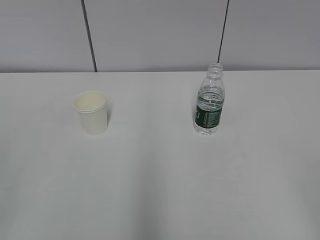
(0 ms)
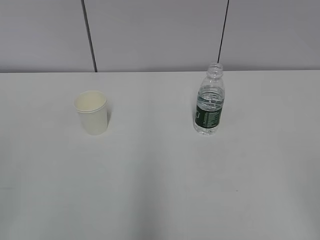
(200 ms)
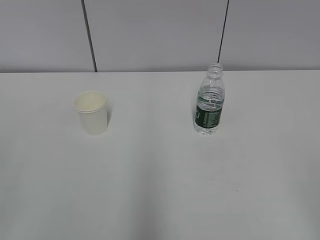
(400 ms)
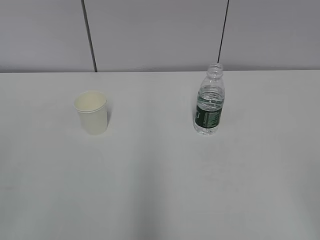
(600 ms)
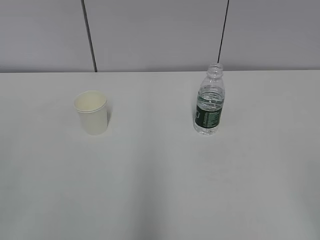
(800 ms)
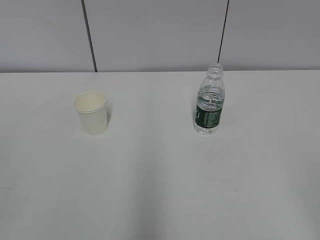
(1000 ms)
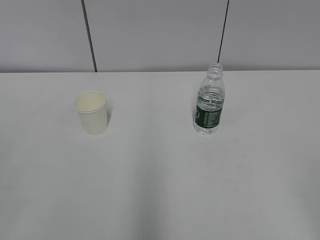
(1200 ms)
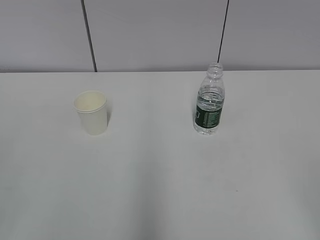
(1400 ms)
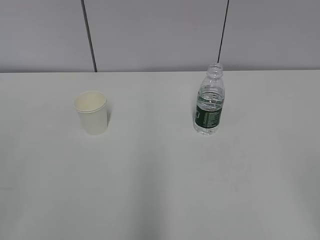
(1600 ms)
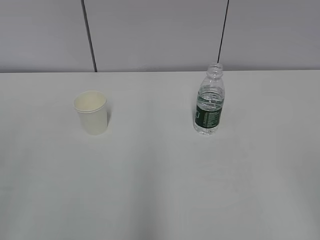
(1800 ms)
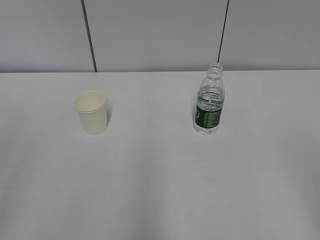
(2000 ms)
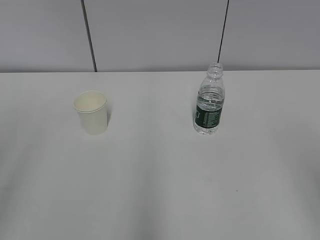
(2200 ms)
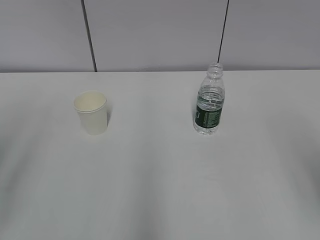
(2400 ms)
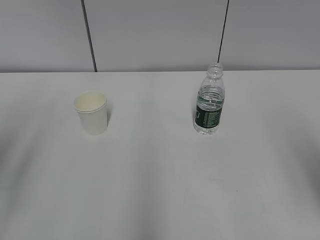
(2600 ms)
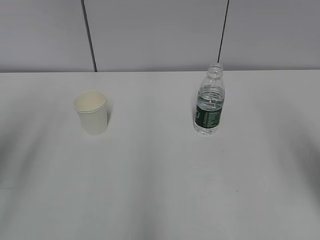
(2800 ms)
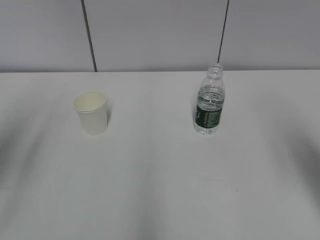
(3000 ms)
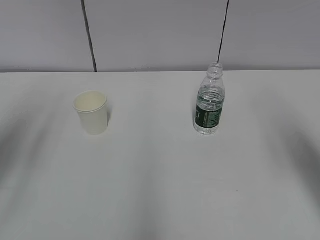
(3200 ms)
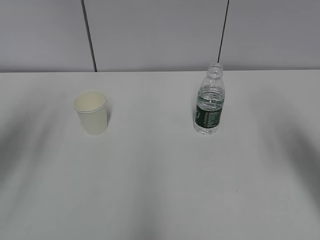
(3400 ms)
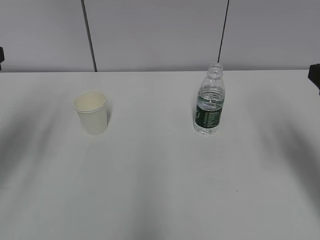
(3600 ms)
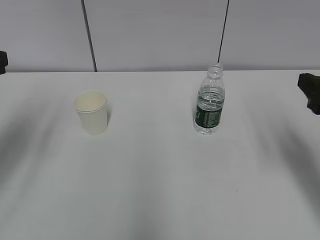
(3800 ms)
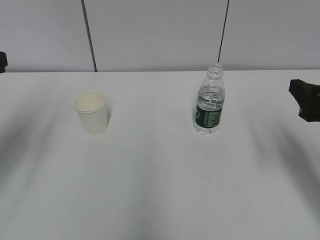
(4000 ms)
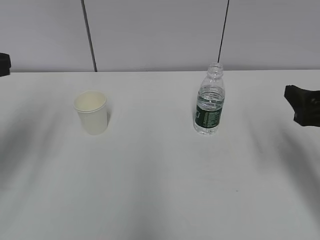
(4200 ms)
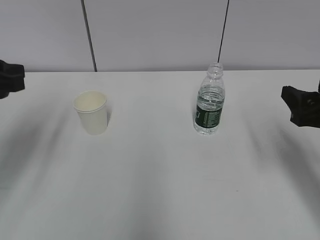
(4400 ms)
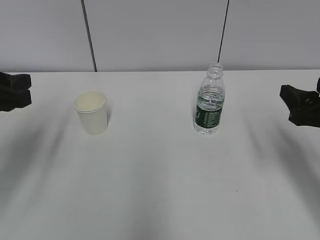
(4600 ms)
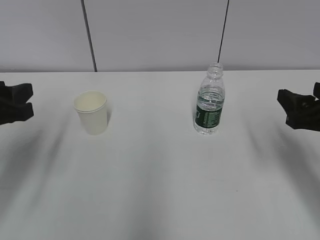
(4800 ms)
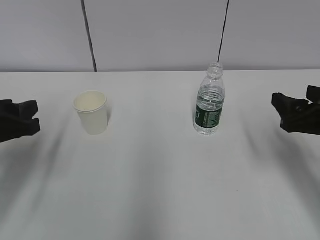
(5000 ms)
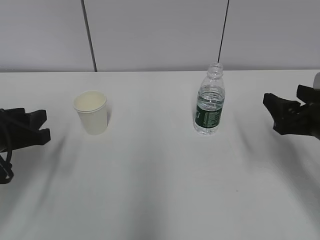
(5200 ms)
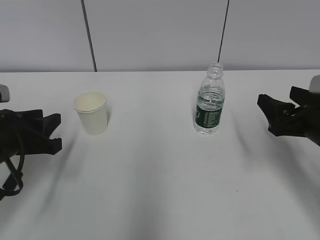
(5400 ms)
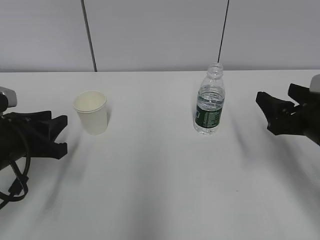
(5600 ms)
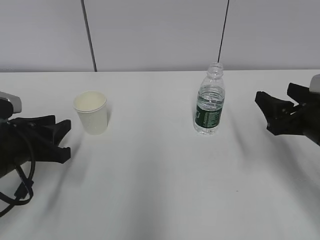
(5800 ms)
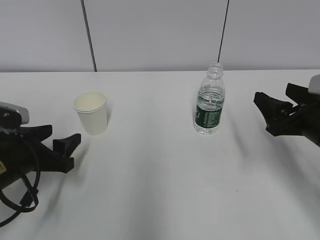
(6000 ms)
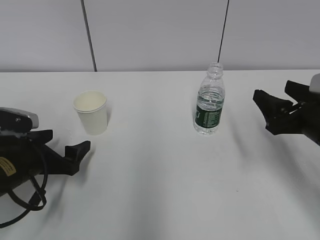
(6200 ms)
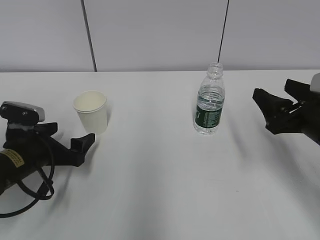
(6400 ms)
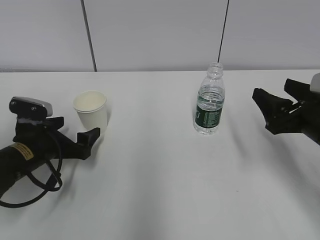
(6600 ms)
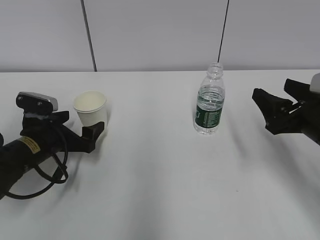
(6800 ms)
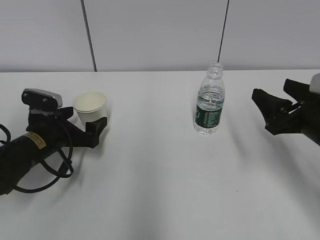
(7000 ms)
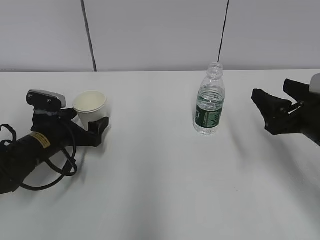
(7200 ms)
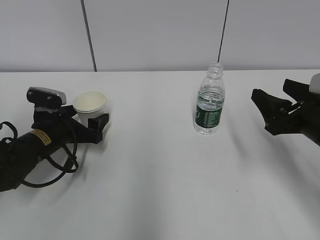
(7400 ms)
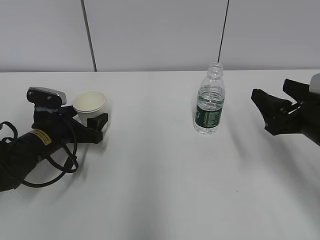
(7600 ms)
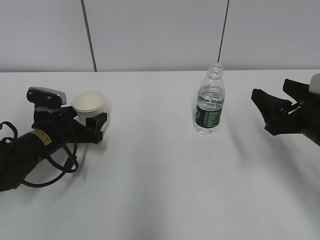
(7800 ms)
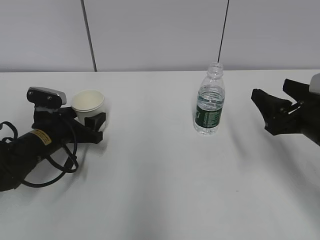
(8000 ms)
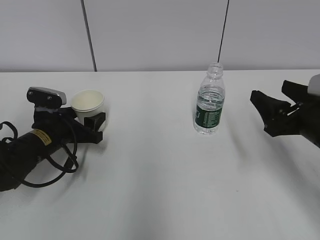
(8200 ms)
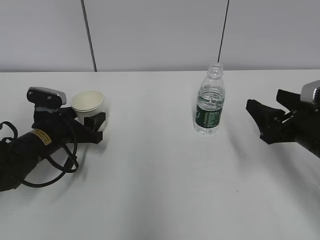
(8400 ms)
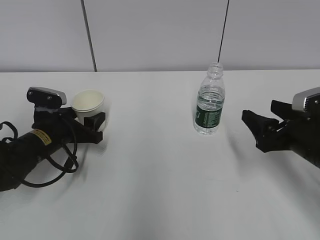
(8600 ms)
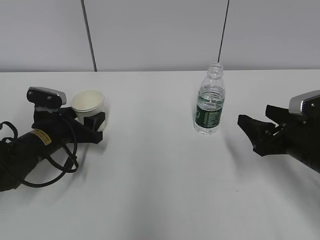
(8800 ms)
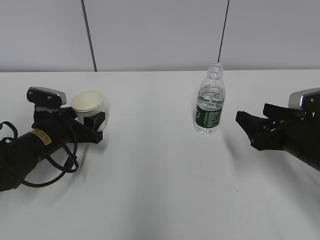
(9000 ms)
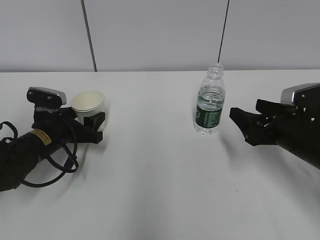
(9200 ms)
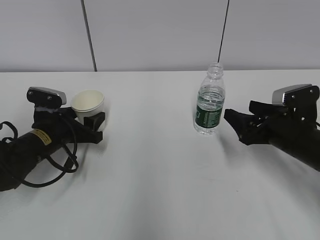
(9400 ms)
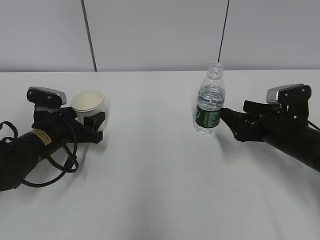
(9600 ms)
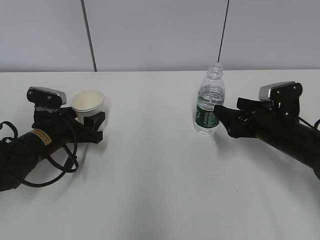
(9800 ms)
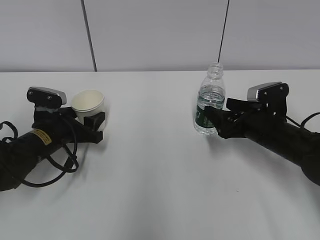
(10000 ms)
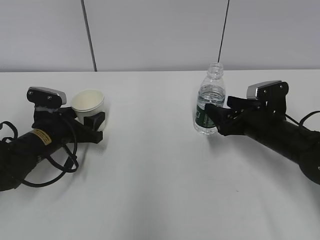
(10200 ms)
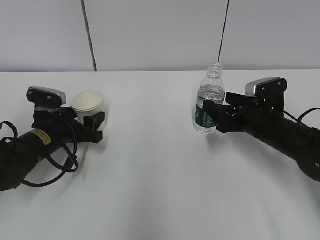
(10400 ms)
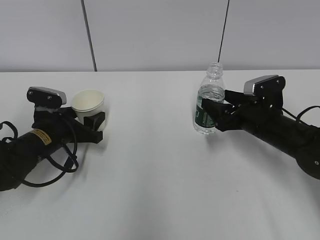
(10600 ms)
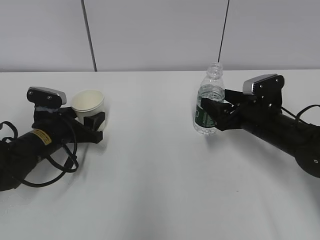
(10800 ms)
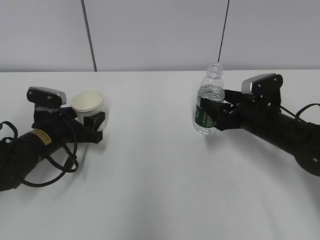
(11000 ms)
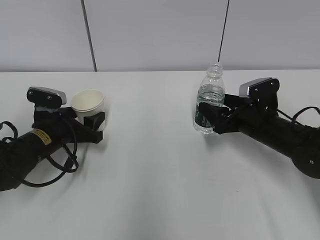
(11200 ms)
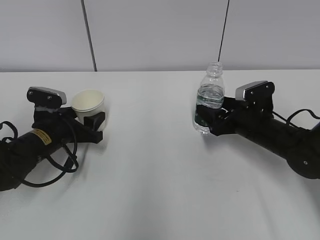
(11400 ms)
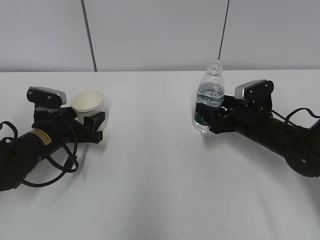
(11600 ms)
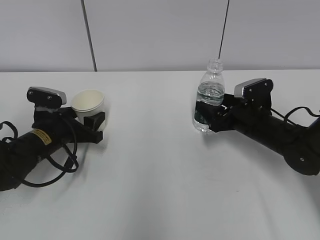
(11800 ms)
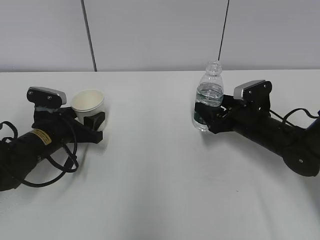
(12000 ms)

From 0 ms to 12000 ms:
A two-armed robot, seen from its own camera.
Step, from 0 ms to 6800 ms: Grab the paper cup with the left hand.
Step, from 7000 ms to 10600 ms: Grab the water bottle with the right hand.
From 1600 ms to 3000 ms: The grippers both shift forward by roughly 20 cm.
From 3000 ms to 4400 ms: The right gripper heads downward and forward, covering some 15 cm, while the left gripper goes roughly 10 cm forward and downward.
From 4400 ms to 6000 ms: The left gripper shifts some 15 cm downward, and opens.
From 6000 ms to 7600 ms: The left gripper shifts some 10 cm forward, and opens up.
From 9000 ms to 10400 ms: The right gripper is displaced forward by some 10 cm.
From 10400 ms to 12000 ms: The grippers make only small movements.

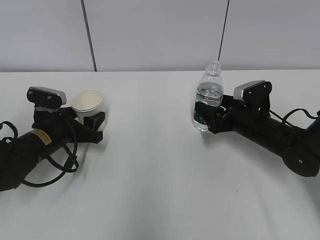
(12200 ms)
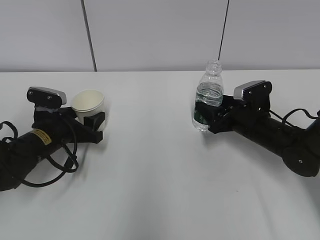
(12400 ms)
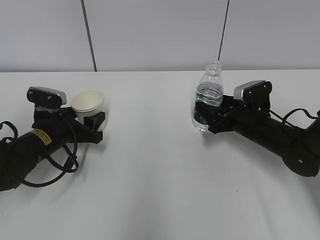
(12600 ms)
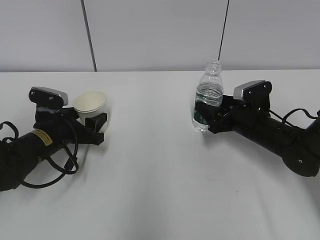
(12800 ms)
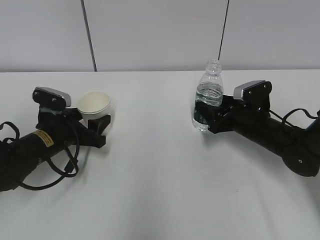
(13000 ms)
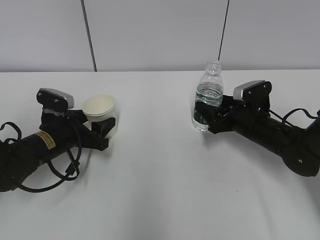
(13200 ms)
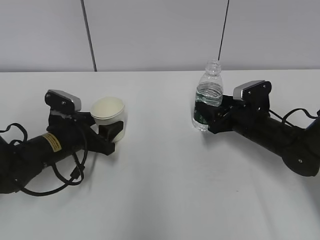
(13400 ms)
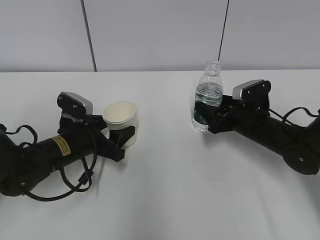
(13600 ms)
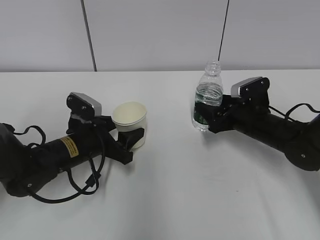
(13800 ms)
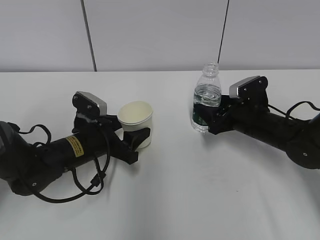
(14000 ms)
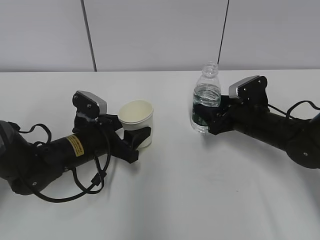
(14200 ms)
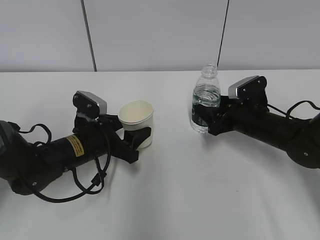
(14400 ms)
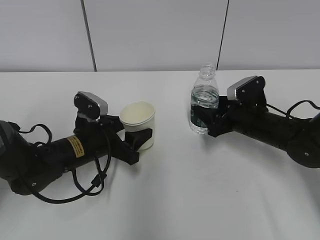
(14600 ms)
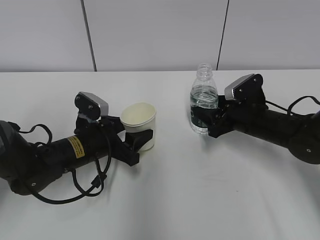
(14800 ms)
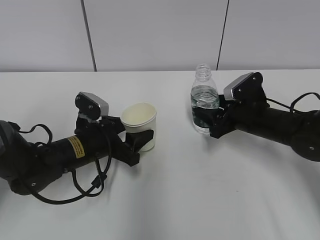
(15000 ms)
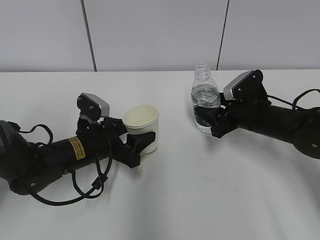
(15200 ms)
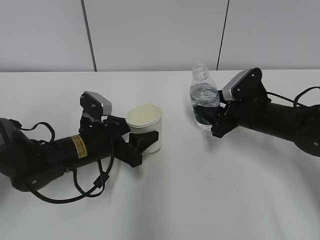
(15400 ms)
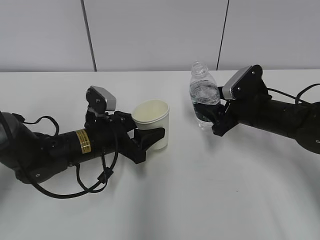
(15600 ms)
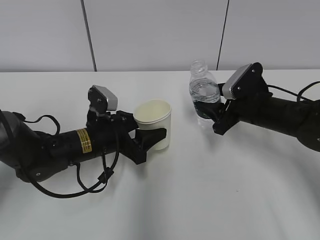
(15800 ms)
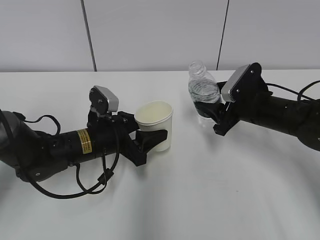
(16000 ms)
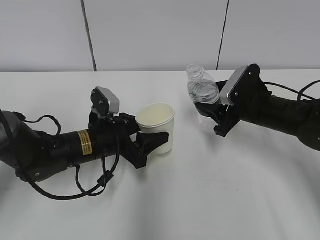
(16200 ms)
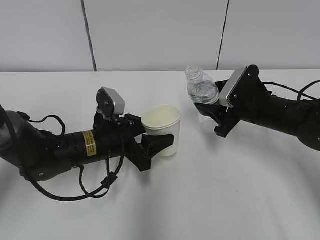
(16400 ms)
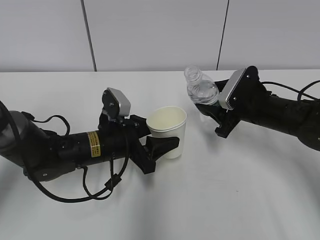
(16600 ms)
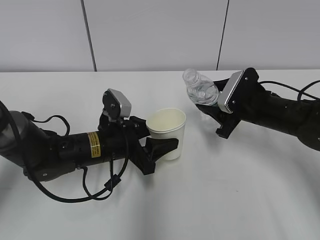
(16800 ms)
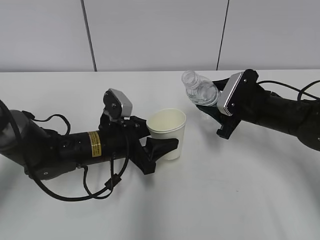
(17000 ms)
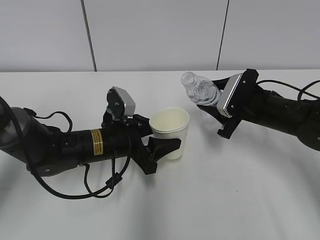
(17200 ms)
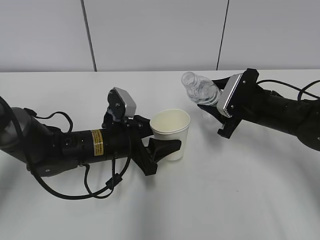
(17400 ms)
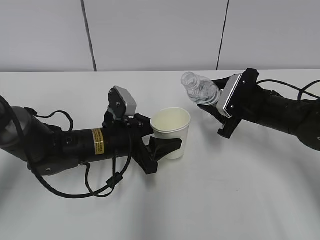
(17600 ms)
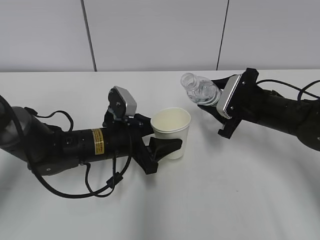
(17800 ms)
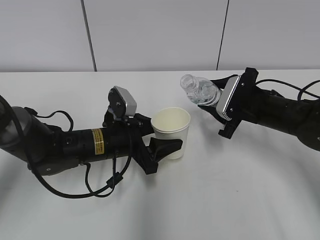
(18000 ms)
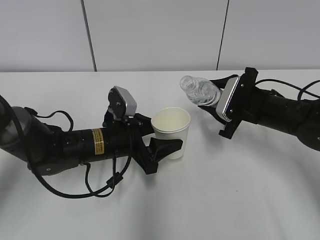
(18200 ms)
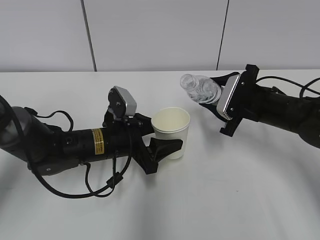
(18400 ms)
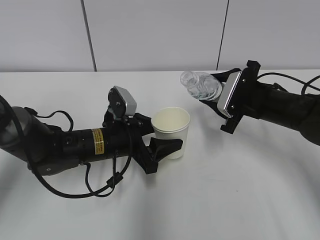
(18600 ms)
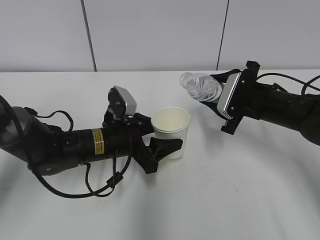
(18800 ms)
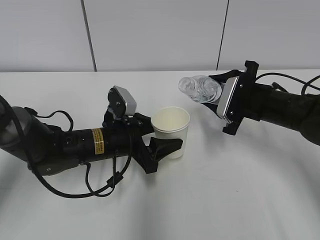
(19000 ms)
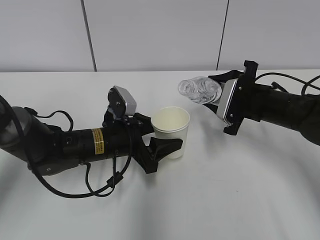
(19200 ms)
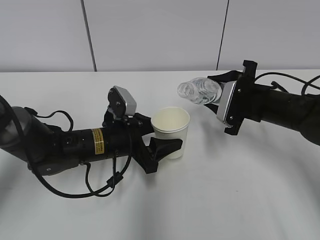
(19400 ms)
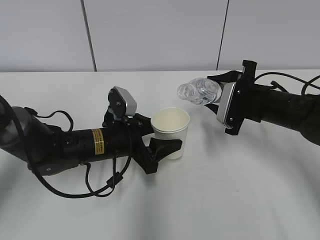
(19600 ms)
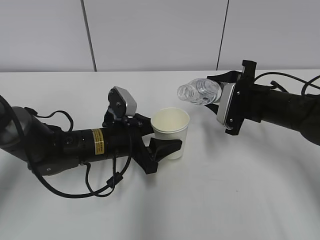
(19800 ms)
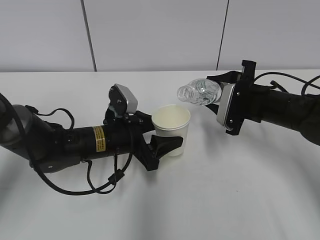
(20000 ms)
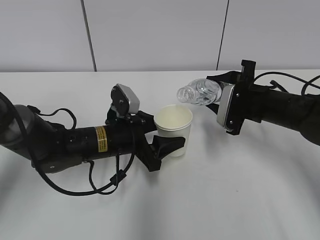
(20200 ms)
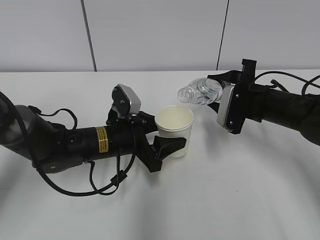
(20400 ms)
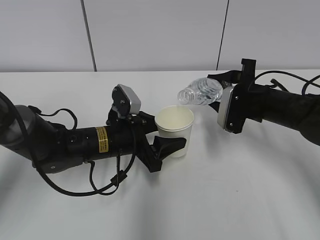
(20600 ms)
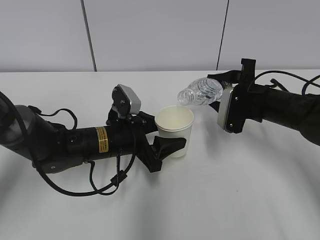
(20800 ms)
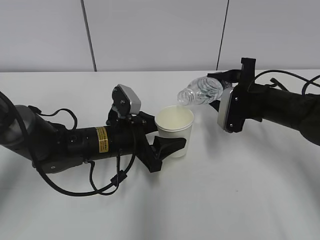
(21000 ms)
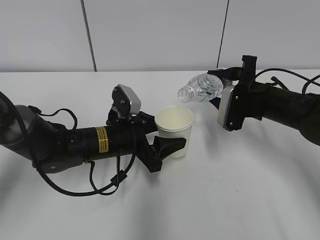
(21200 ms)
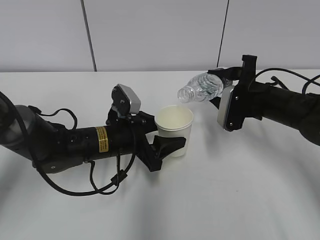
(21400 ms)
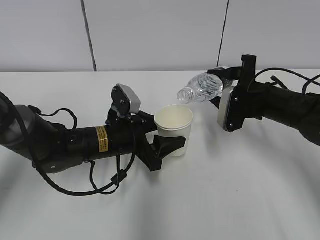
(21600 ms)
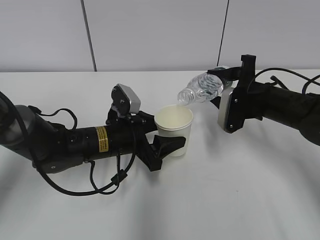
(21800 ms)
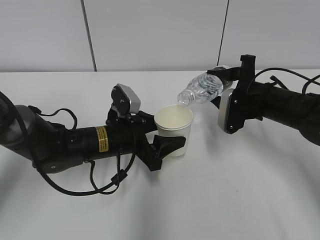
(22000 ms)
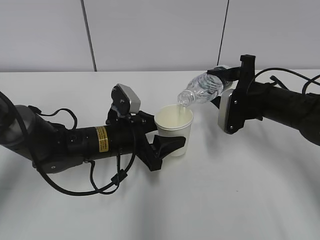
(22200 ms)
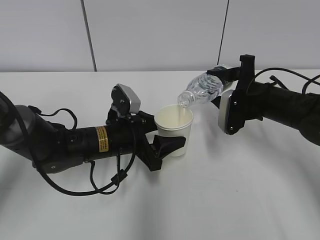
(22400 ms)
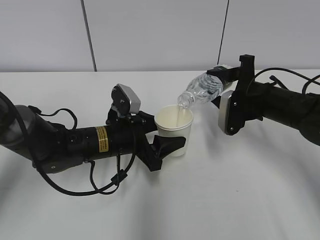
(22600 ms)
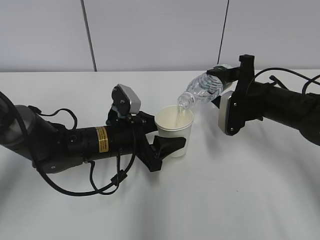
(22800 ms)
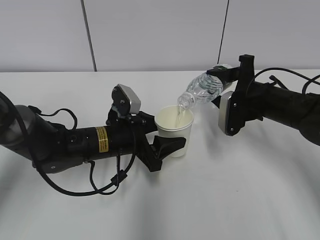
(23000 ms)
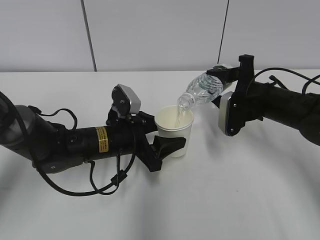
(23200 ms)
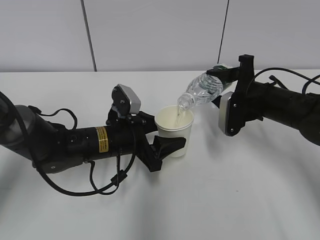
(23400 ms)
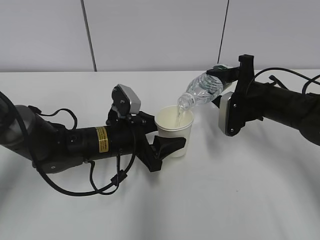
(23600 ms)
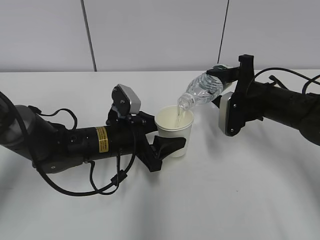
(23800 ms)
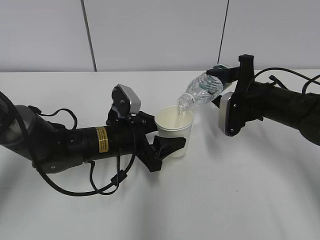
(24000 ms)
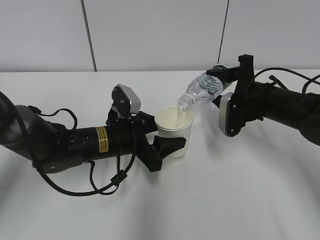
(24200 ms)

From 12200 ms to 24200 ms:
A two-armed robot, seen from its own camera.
Step, from 12200 ms to 17400 ms: Lift the paper cup with the left hand.
Step, from 17600 ms to 23600 ms: Fill water with the left hand.
Step, from 17600 ms to 23600 ms: Pour water with the right hand.
From 12200 ms to 13800 ms: The left gripper shifts approximately 5 cm to the right.
From 13800 ms to 15200 ms: There are only small adjustments of the grippers.
From 16600 ms to 18200 ms: The grippers stay close to where they were, moving slightly.
From 18200 ms to 19800 ms: The grippers stay close to where they were, moving slightly.
From 19800 ms to 22600 ms: The grippers stay close to where they were, moving slightly.
From 22600 ms to 24200 ms: Both grippers stay about where they are.
